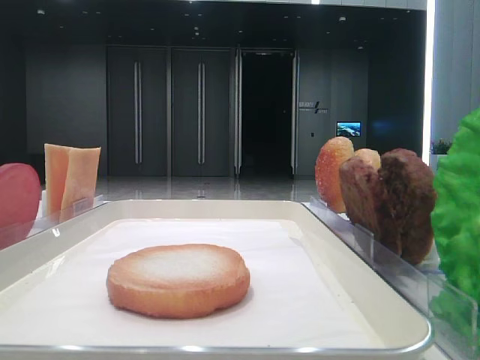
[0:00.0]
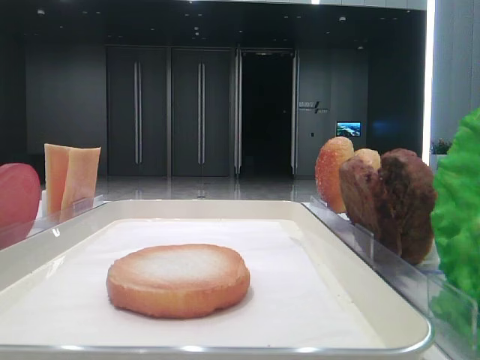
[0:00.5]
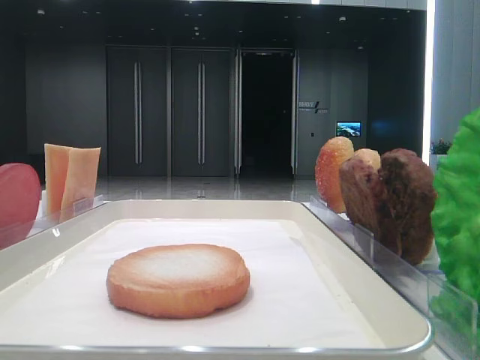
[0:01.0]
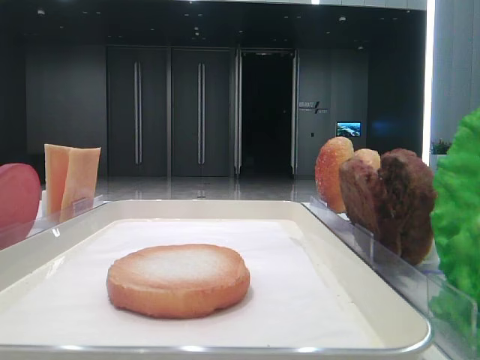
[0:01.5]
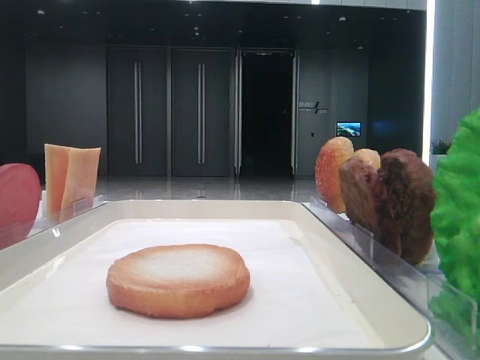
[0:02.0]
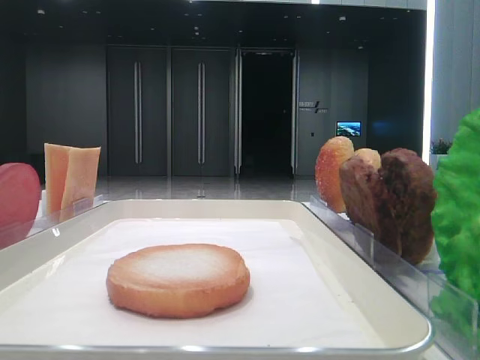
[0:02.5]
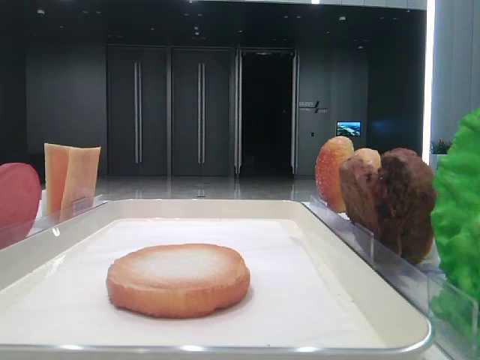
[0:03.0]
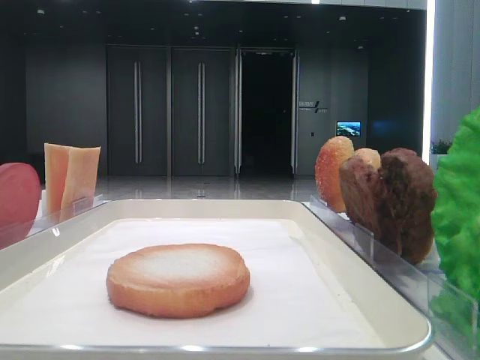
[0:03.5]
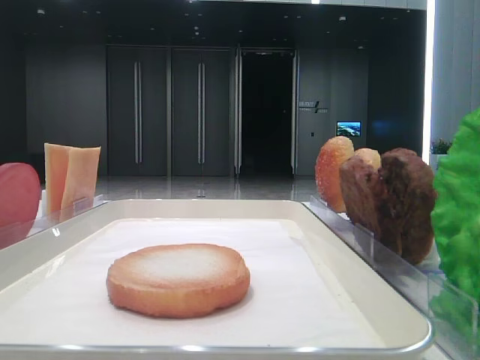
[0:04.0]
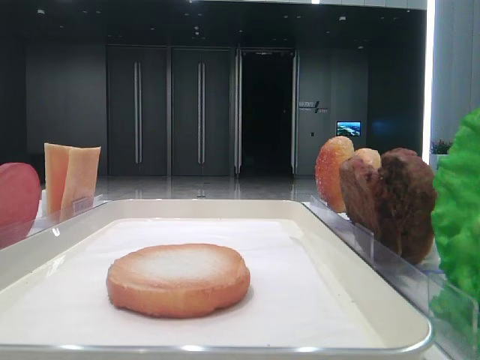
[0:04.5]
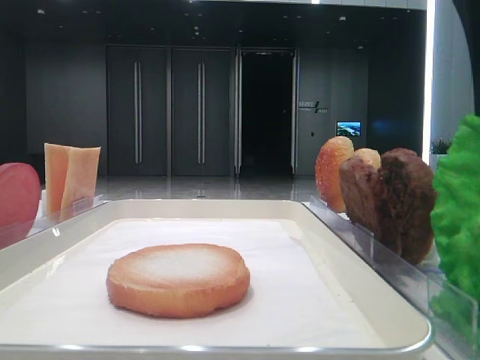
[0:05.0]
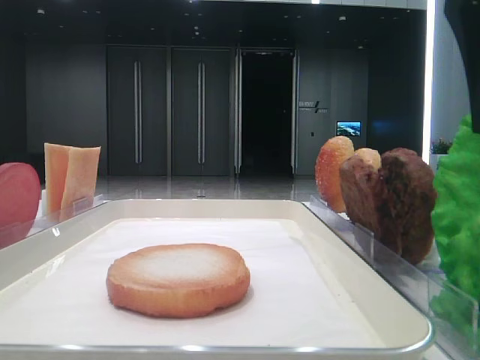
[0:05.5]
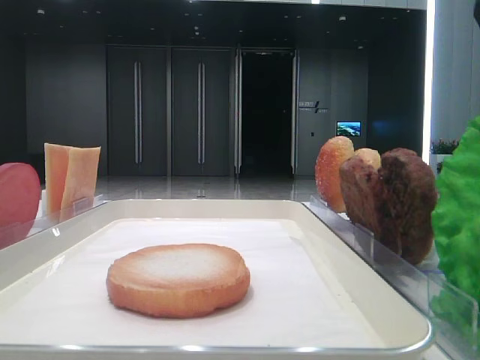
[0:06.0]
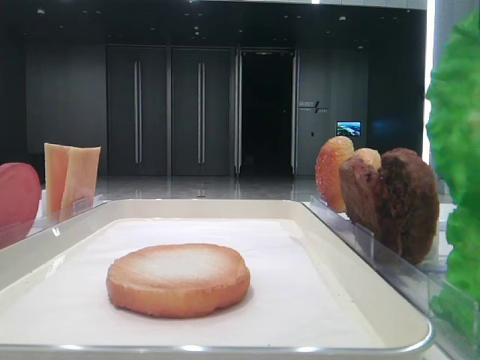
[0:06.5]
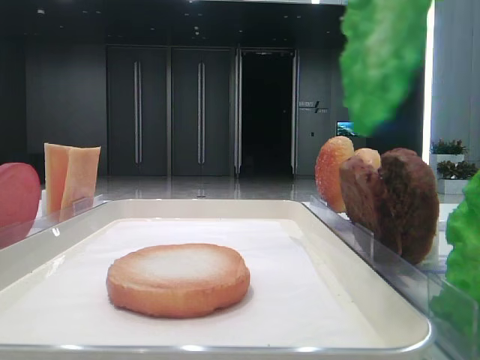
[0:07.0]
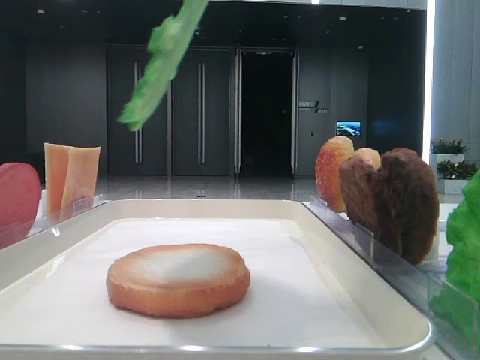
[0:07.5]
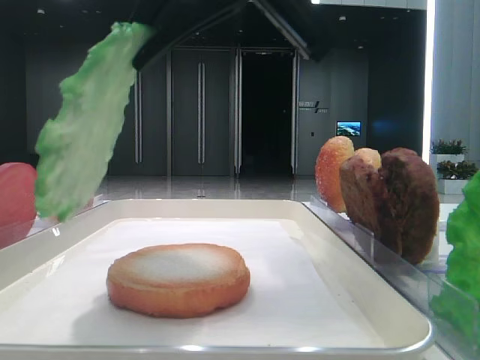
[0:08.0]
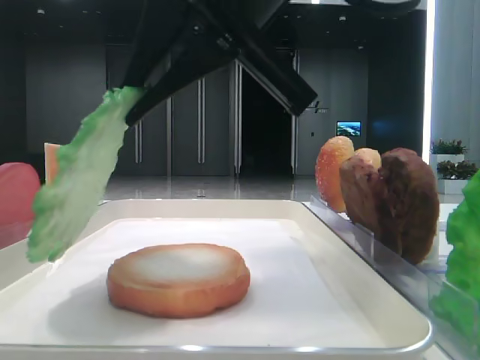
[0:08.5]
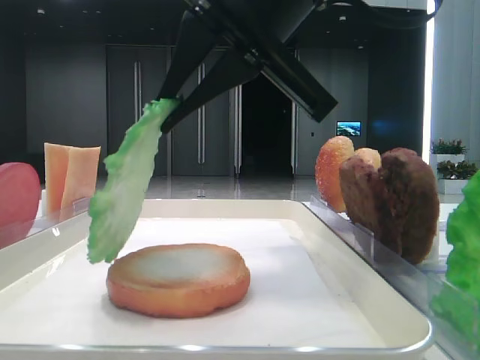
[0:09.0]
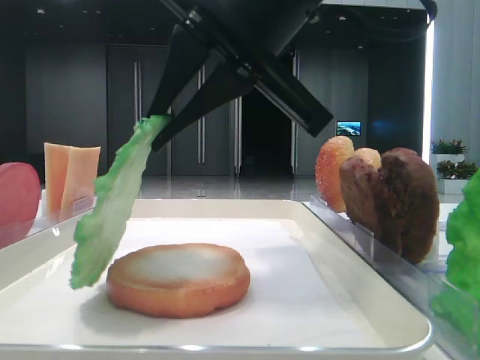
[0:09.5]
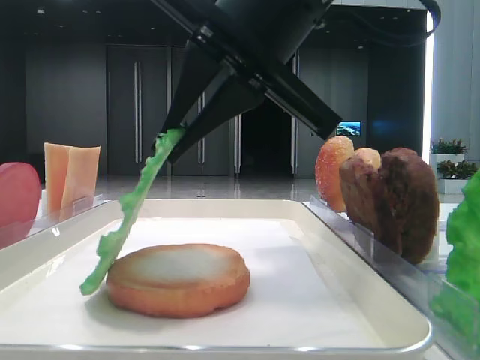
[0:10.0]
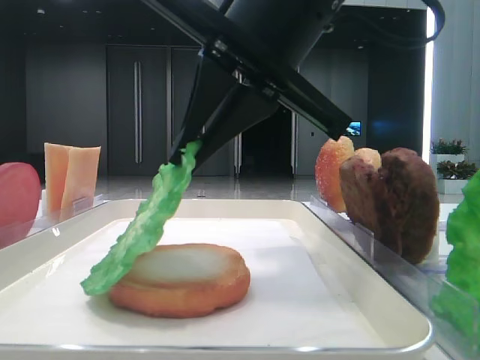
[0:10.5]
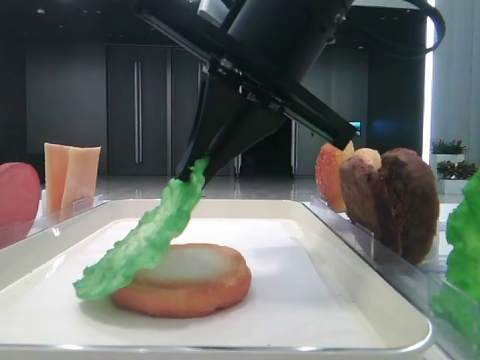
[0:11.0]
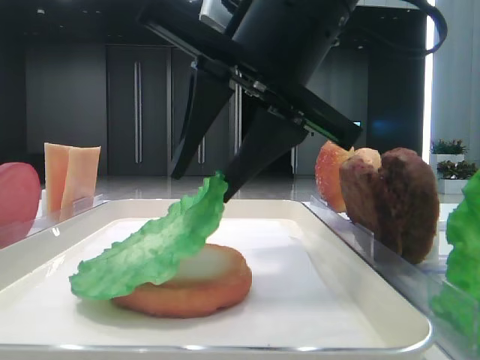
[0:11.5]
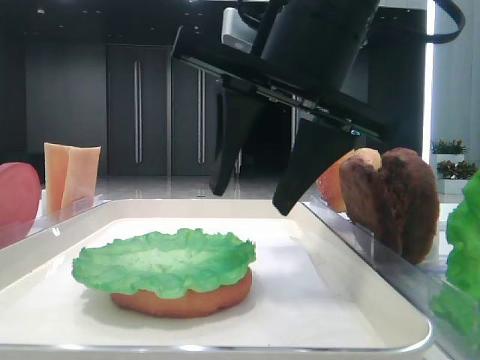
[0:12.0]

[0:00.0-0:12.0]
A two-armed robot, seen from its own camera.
Step, 0:06.5 to 0:11.5: Place the lettuce leaf on the bottom bread with the right hand.
0:06.0 to 0:08.0: The right gripper is displaced to the left by approximately 15 cm.
0:08.0 to 0:10.0: The right gripper ends up roughly 5 cm from where it was.
0:10.0 to 0:12.0: The right gripper opens up.

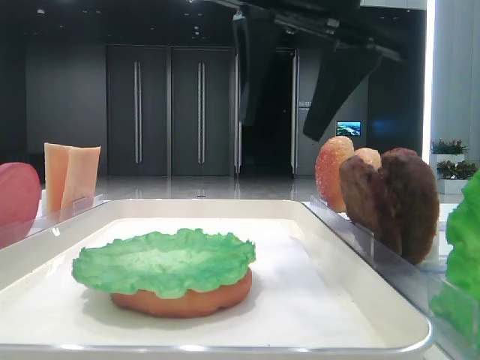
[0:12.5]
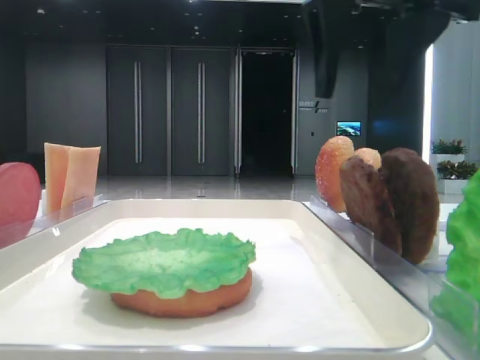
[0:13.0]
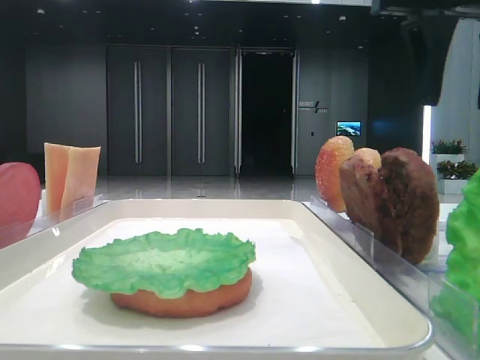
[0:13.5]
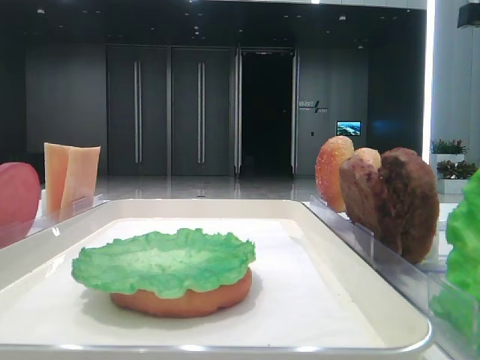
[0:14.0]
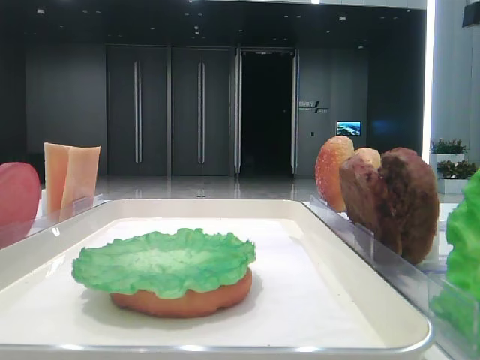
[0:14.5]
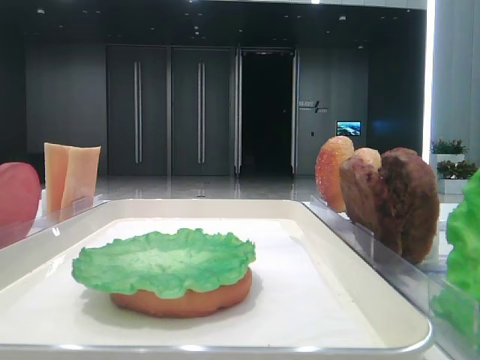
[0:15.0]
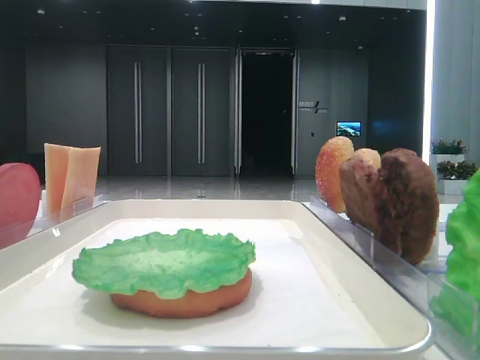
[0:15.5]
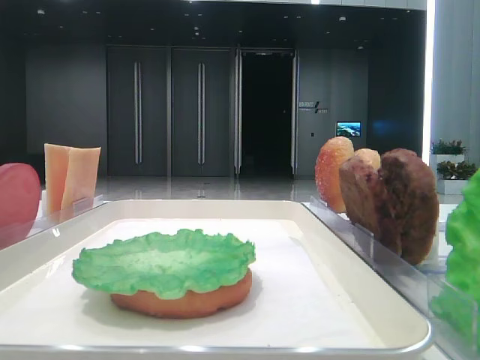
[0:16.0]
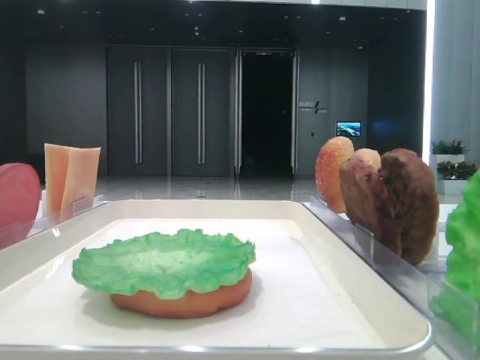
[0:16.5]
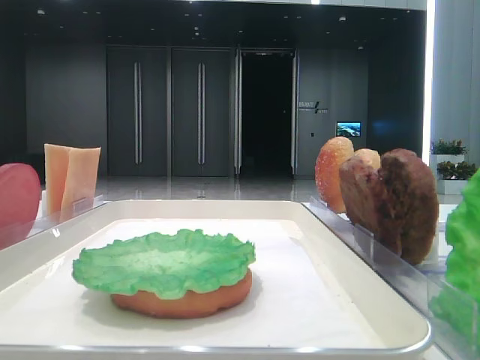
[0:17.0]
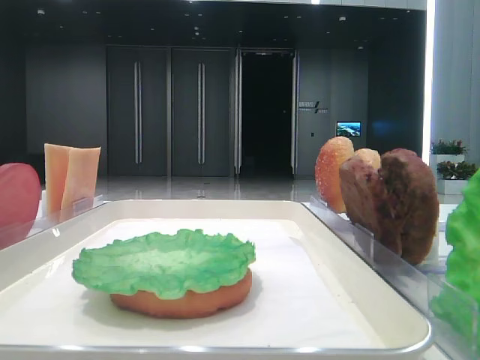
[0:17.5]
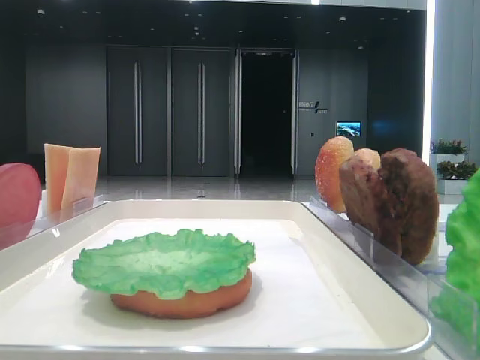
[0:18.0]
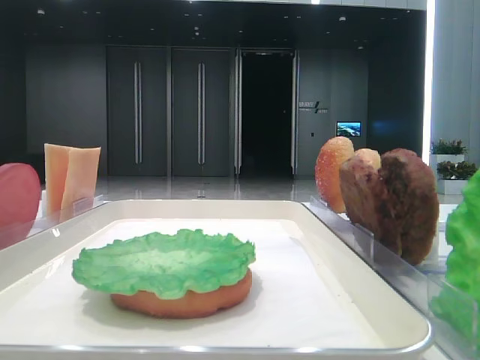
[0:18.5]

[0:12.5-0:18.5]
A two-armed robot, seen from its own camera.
0:12.5 to 0:14.5: The right gripper goes about 20 cm to the right.
